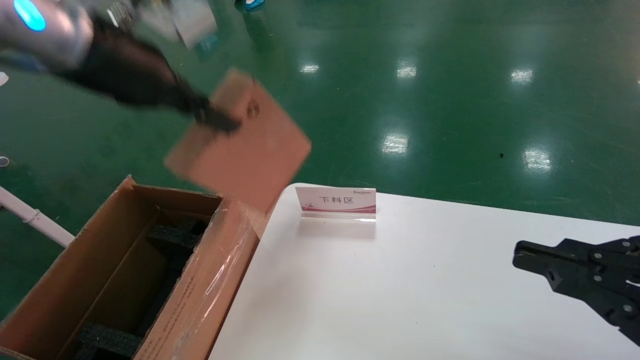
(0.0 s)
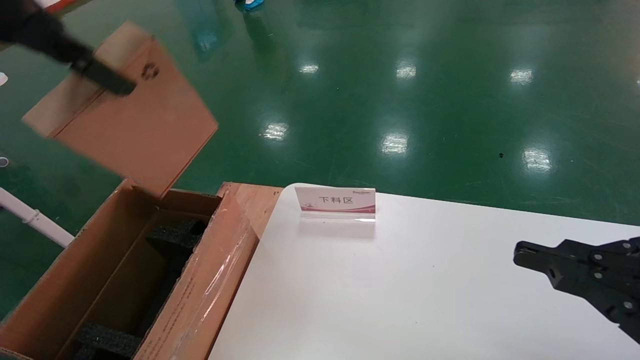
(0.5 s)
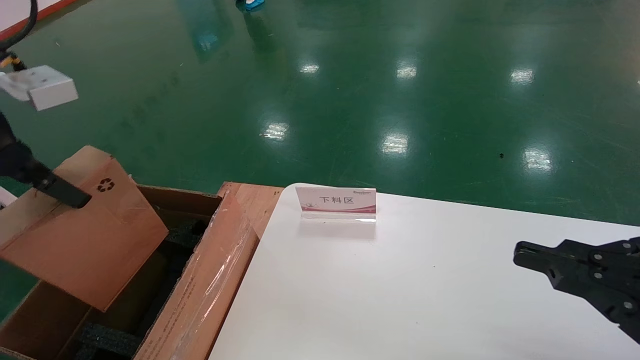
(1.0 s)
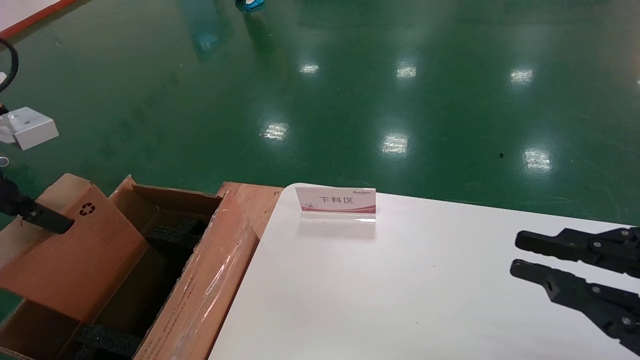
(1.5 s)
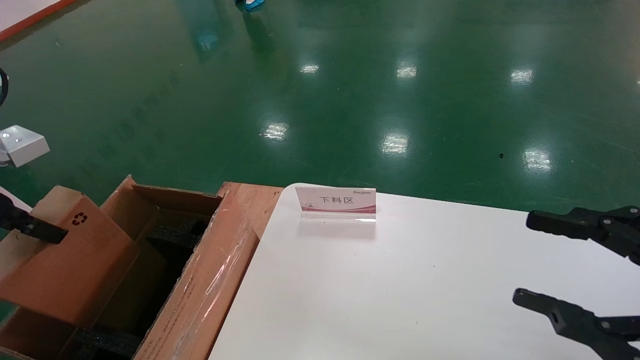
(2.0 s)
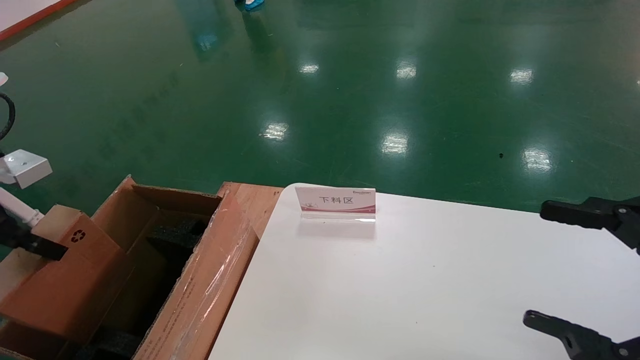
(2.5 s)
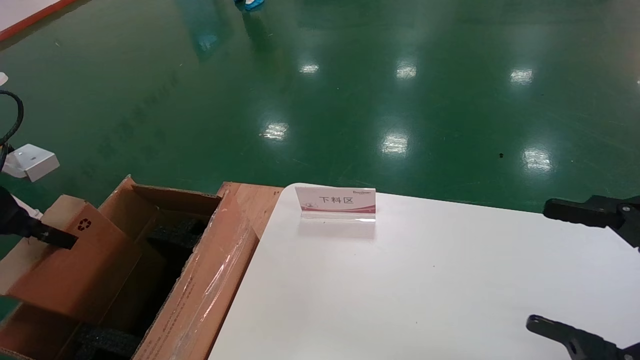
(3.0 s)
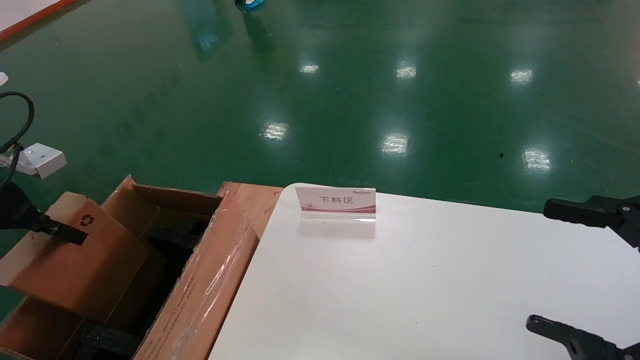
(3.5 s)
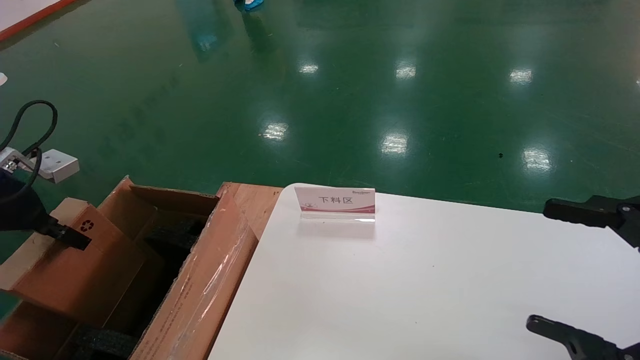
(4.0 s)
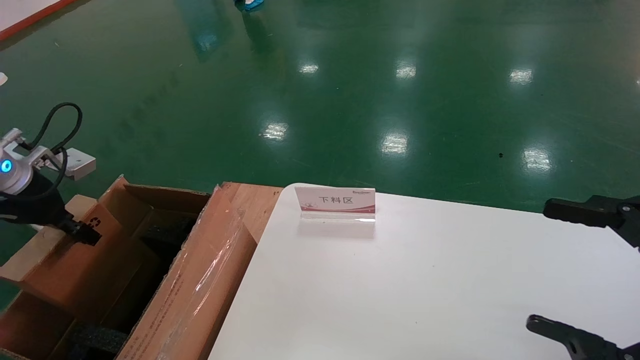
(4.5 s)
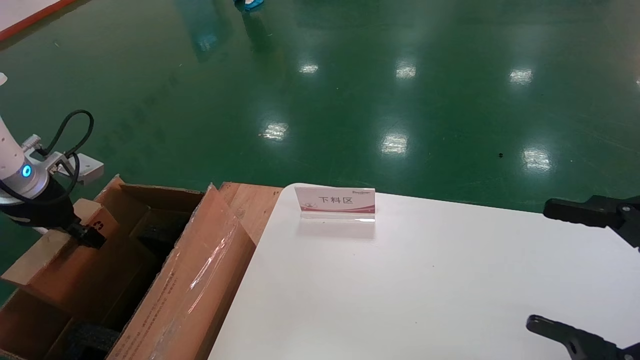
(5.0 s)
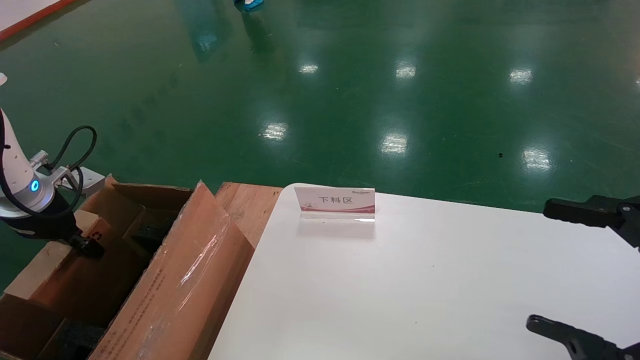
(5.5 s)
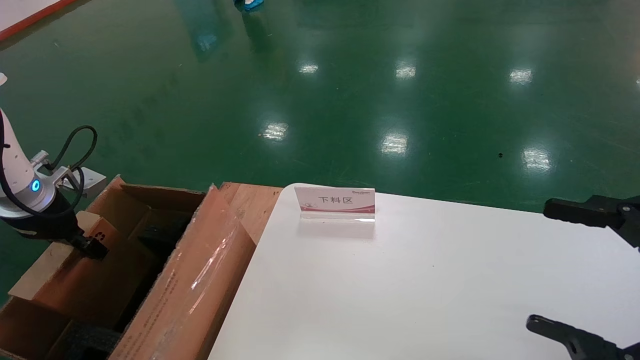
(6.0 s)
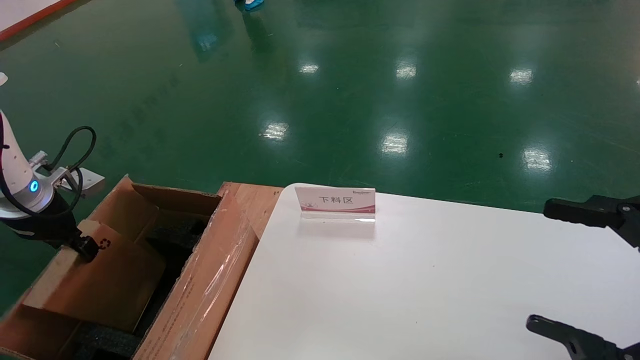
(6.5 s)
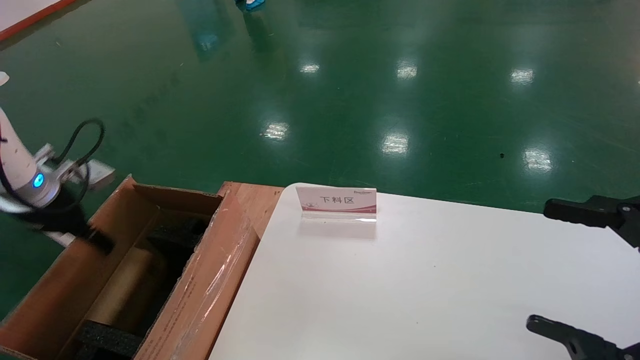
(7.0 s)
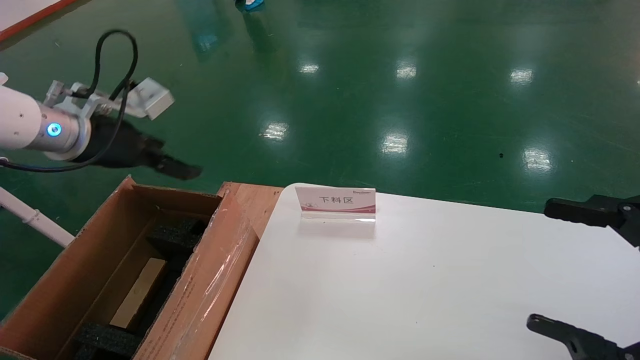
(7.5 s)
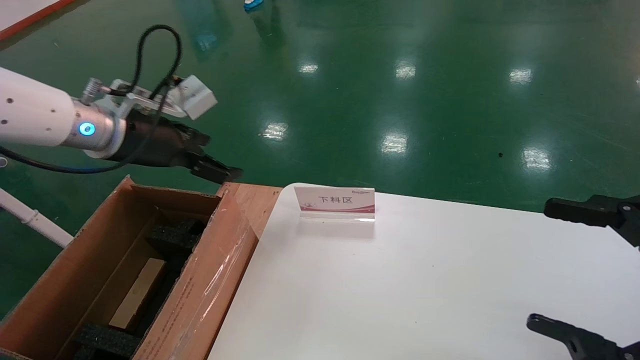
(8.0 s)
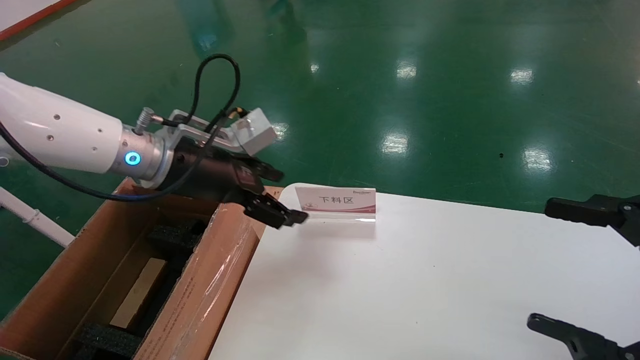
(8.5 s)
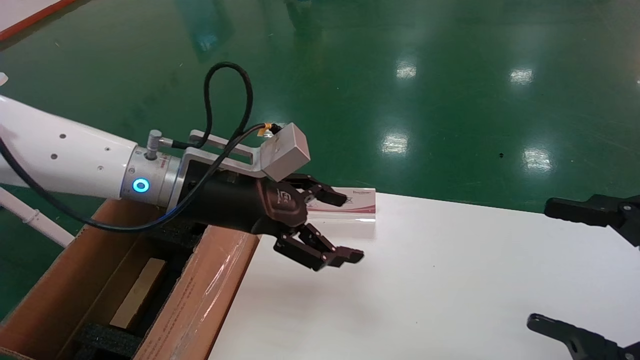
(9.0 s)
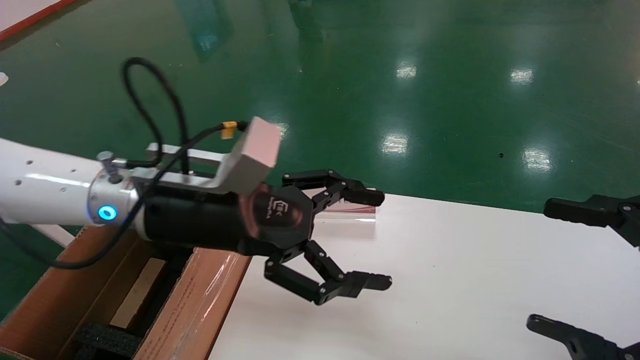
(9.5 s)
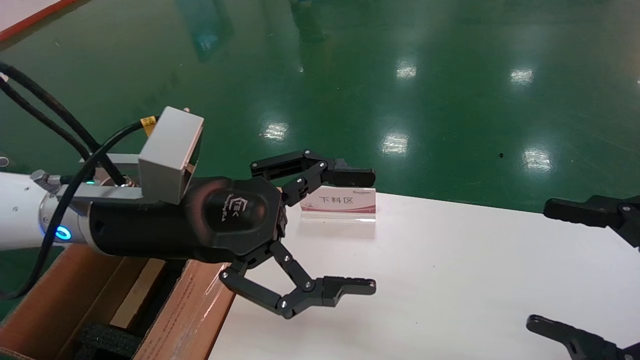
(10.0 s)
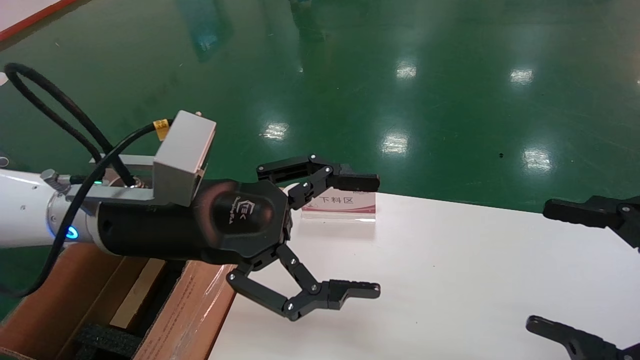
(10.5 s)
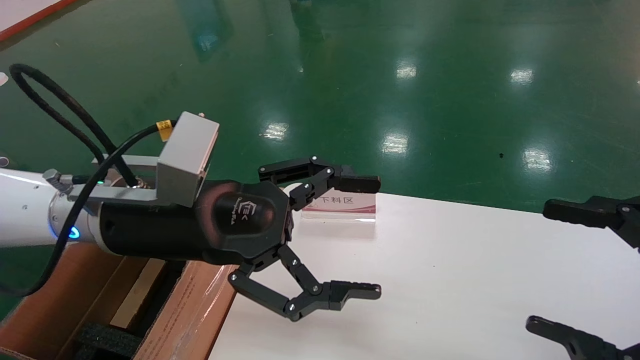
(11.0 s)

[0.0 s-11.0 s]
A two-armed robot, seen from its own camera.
Task of the whole recording: pick up the small cardboard box and load it into the large cardboard box.
Step, 0.0 to 6.5 s: Place the mouse and power cord box into the case.
0.0 to 2.0 s: The left gripper is displaced to the left, downward and backward by approximately 20 cm; the right gripper opens up.
2.0 to 3.5 s: The right gripper opens. The left gripper changes place by approximately 10 cm.
3.5 to 5.5 s: The left gripper goes roughly 5 cm forward.
5.5 to 7.5 s: The left gripper travels to the right and upward by about 15 cm, and opens.
7.5 to 9.0 s: The left gripper heads to the right, covering about 20 cm.
9.0 to 11.0 s: The left gripper travels backward by about 5 cm.
